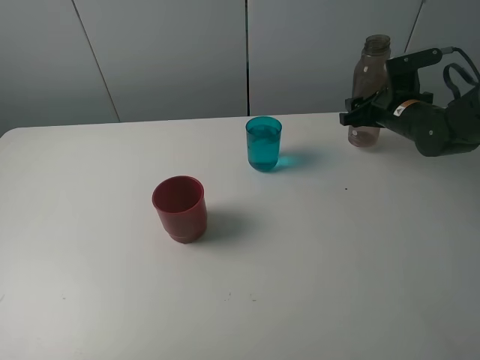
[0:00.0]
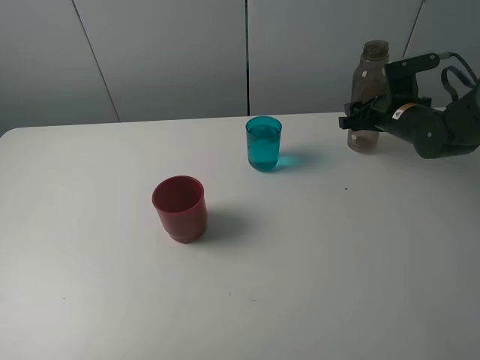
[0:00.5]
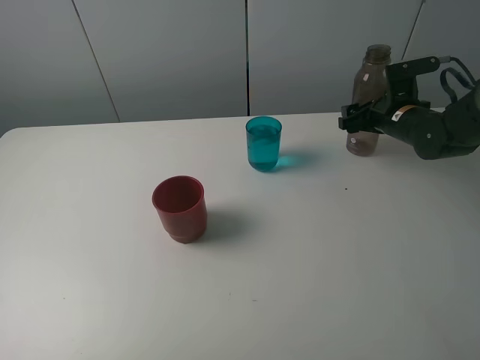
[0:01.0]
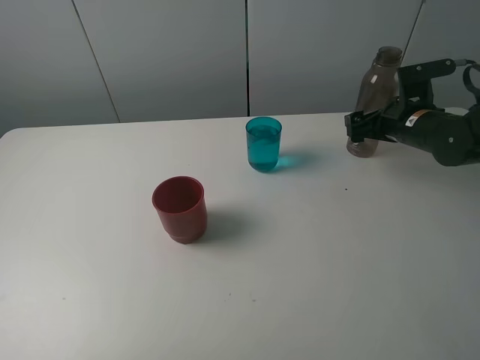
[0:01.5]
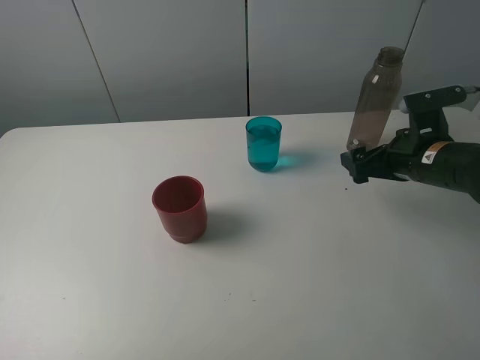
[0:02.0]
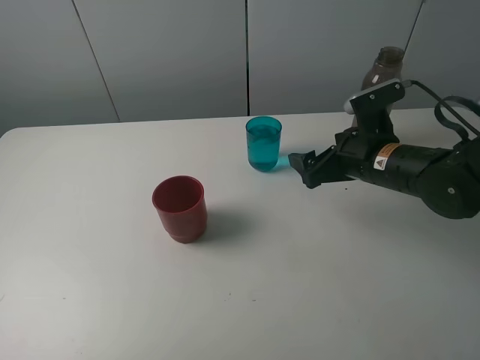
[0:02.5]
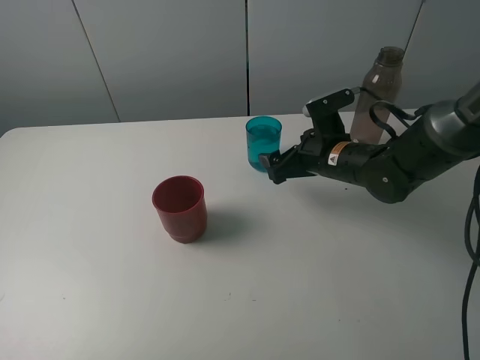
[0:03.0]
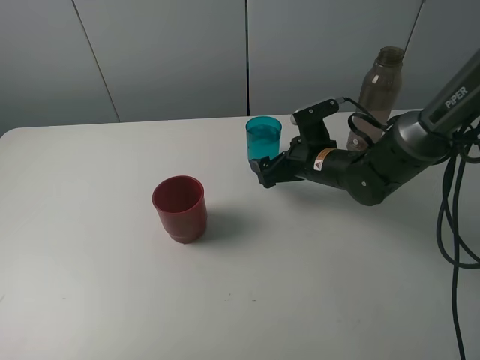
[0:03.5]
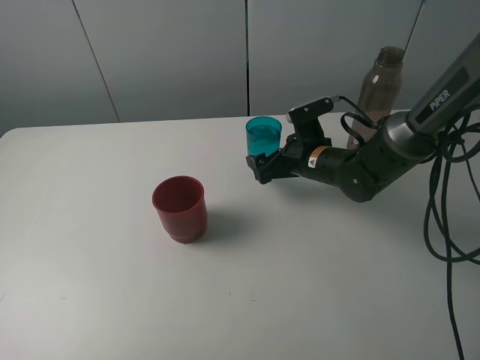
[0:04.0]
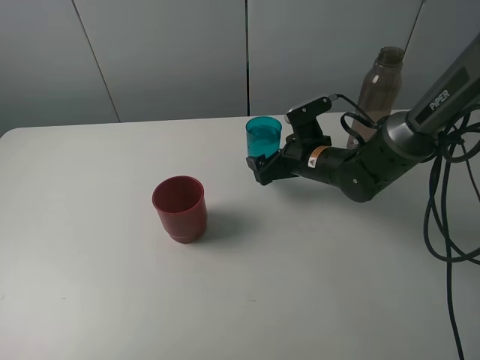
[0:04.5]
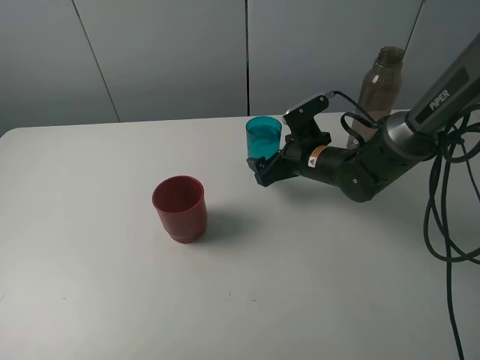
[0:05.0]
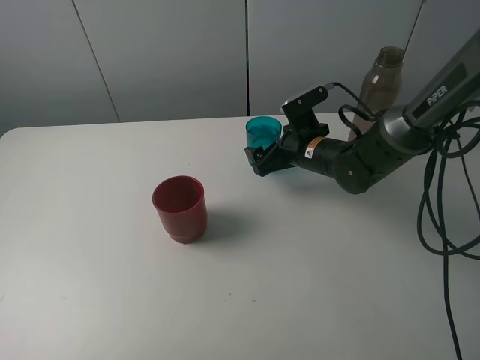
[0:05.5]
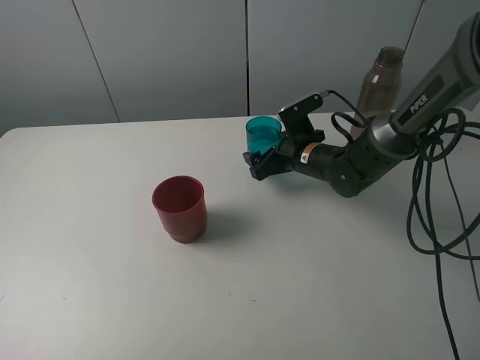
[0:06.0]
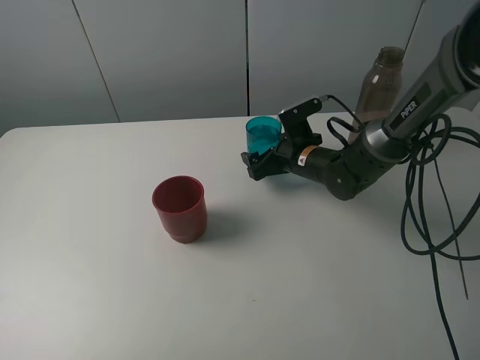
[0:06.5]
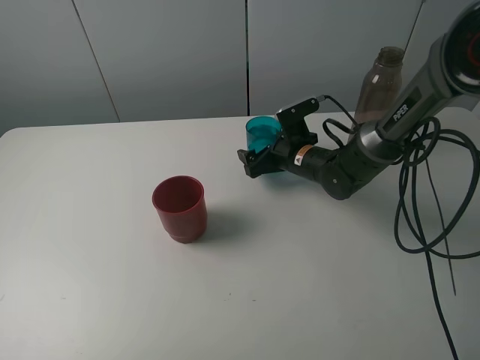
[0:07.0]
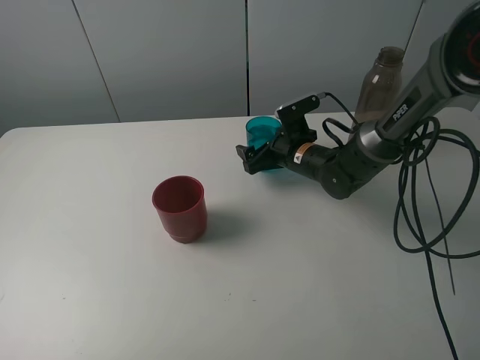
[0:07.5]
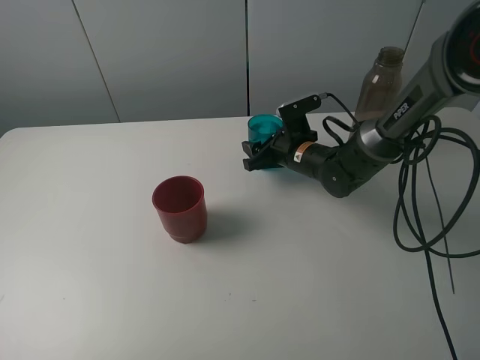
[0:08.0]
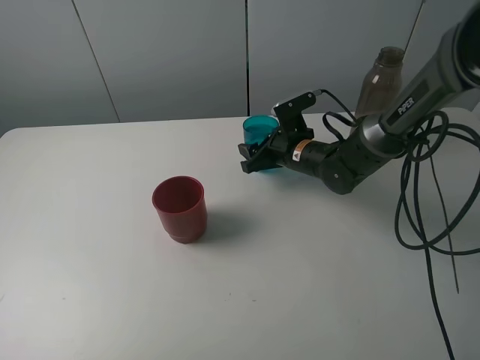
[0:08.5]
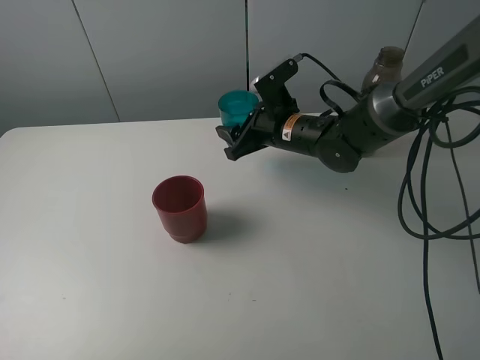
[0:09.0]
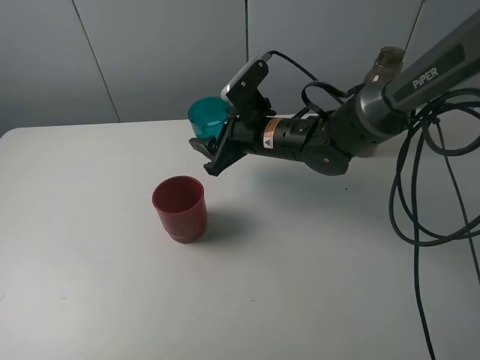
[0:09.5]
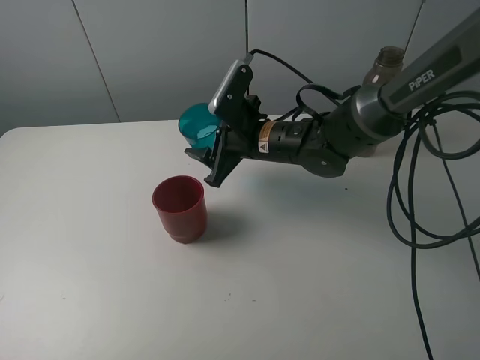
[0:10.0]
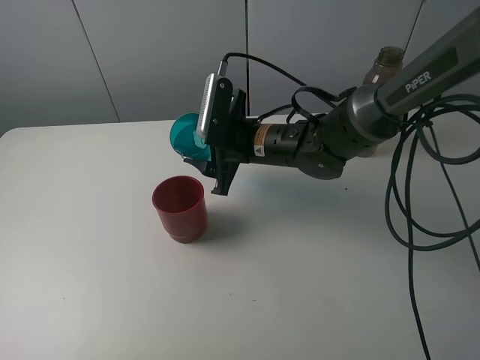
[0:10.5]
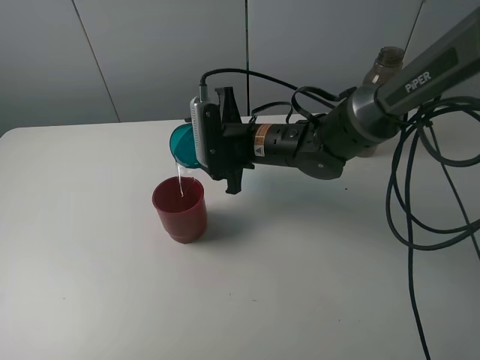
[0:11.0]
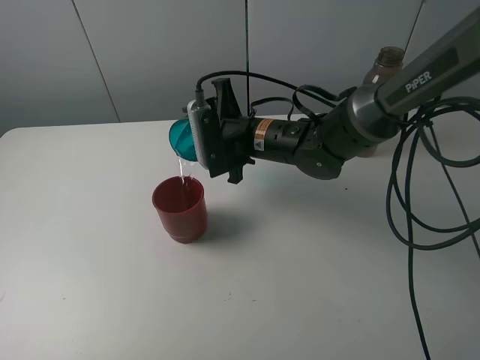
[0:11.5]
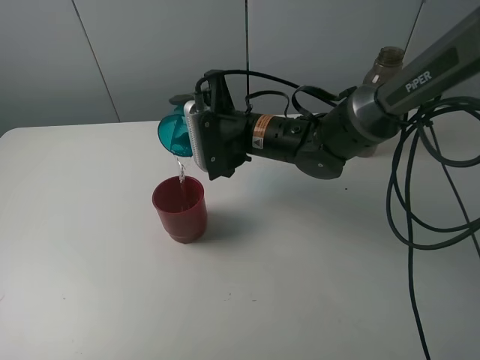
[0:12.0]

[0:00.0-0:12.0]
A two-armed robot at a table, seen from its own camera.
Task of the whole recording: pick up the bottle and pour water into the cup, then pick up the cup containing water and pour it into another cup.
Step, 0:02.0 to 0:08.0: Grasp the blue cup with the right gripper.
0:00.0 to 0:02.0: The right gripper moves backward, approximately 15 cm, and opens.
0:02.0 to 0:04.0: The right gripper goes some 15 cm to the left, forward and downward.
0:04.0 to 0:06.0: There are only small adjustments of the grippers.
0:06.0 to 0:08.0: The right gripper closes its fingers.
0:08.0 to 0:10.0: The right gripper moves upward and to the left, roughly 10 cm.

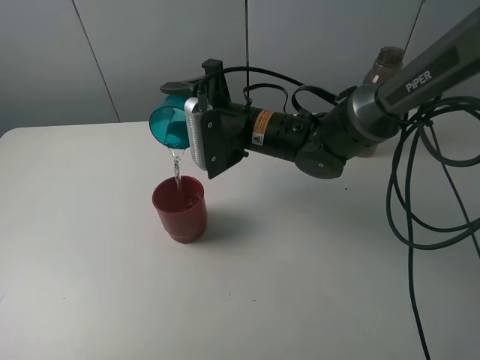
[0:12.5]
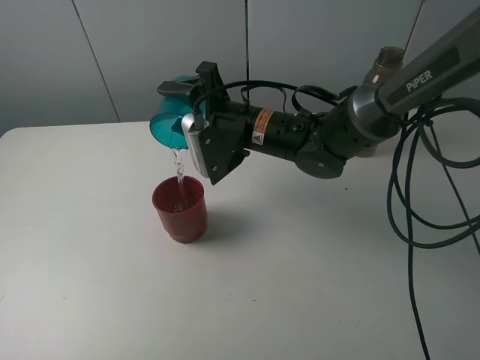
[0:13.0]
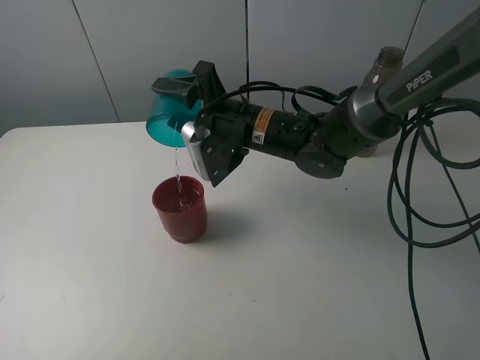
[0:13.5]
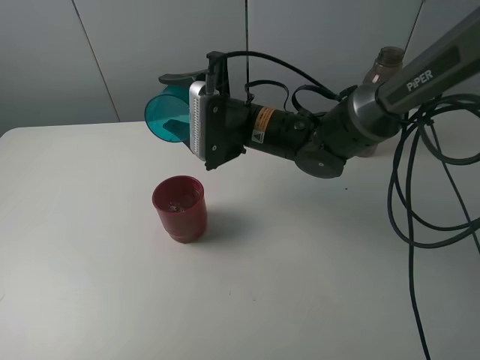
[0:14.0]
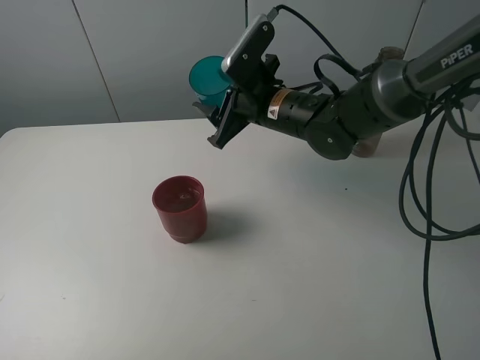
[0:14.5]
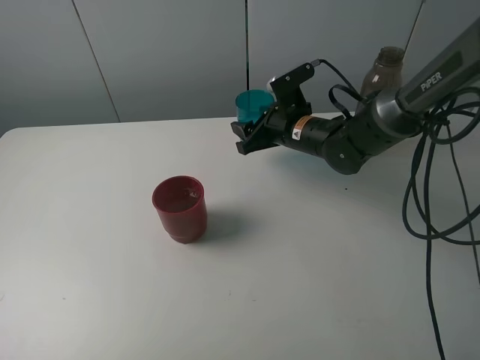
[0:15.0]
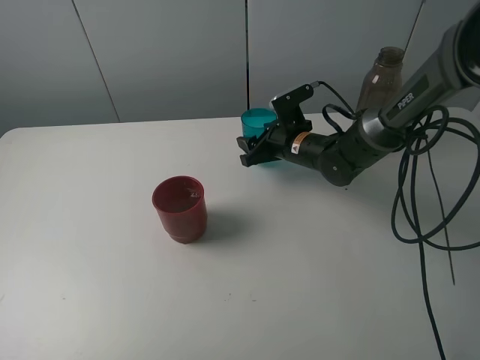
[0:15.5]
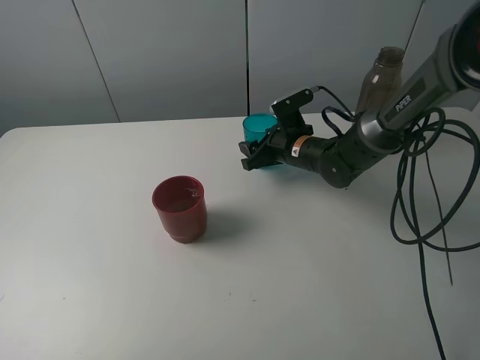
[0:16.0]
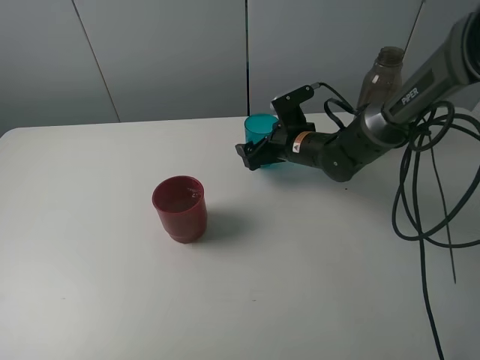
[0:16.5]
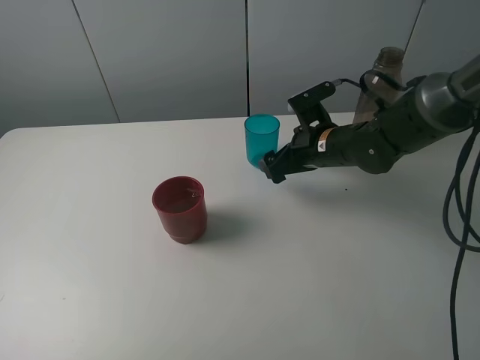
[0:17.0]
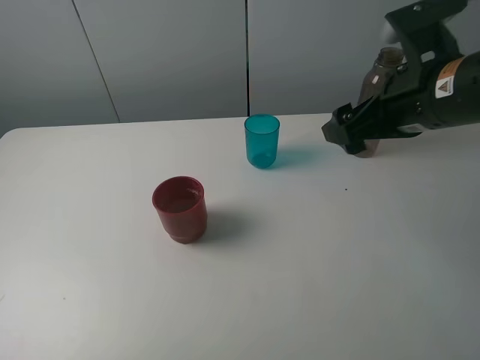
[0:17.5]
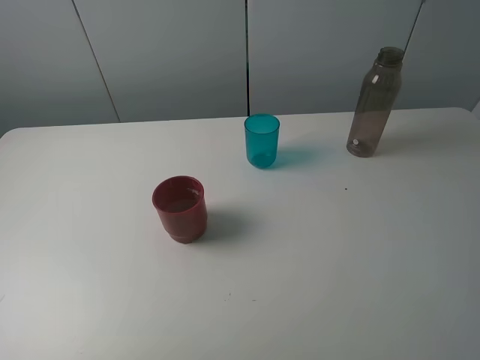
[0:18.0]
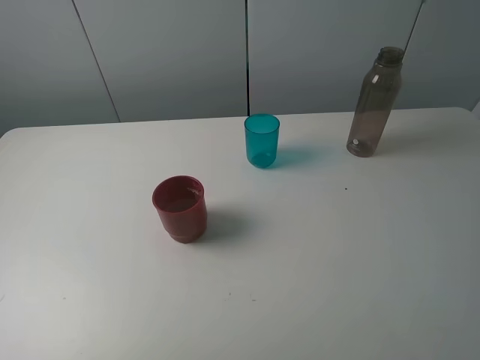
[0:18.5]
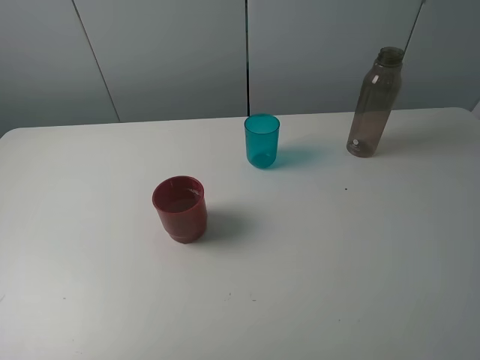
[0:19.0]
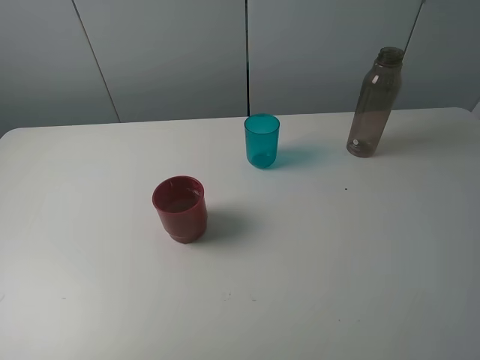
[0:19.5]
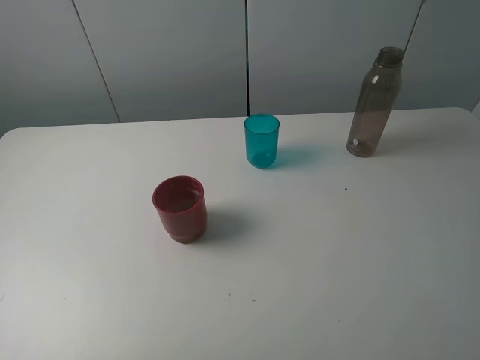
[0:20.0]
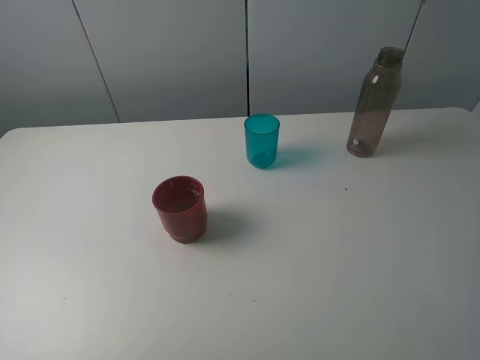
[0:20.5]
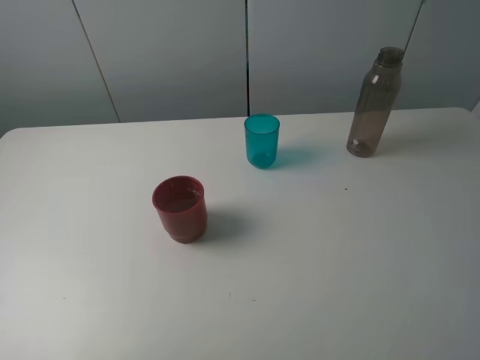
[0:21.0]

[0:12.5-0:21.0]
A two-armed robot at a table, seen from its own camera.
Task of the whole recording: pick up the bottle and pour water into the cup, then pick up the cup containing water and pour it into another cup.
Step, 0:14.0 to 0:16.5: Place the blue cup with the right gripper.
0:12.5 to 0:14.5: The right gripper changes place by approximately 5 cm.
0:14.5 to 0:16.5: The right gripper goes roughly 10 cm downward, and opens its fingers.
0:16.5 to 0:19.0: The right gripper heads backward, upward and to the right, covering about 50 cm.

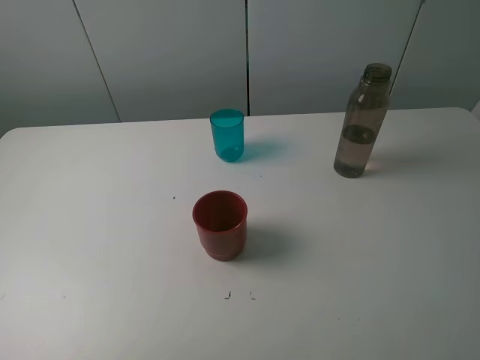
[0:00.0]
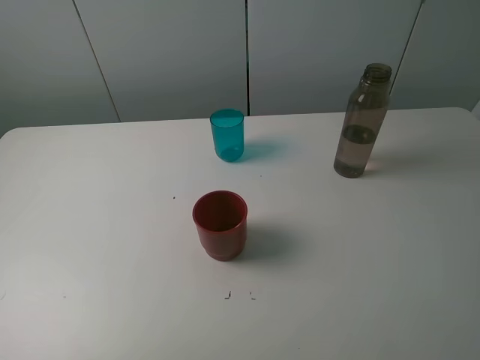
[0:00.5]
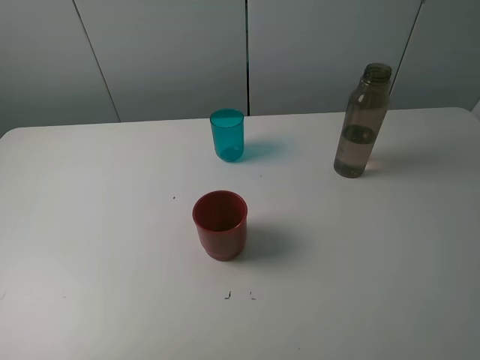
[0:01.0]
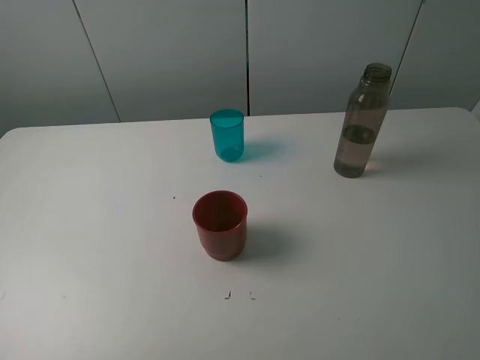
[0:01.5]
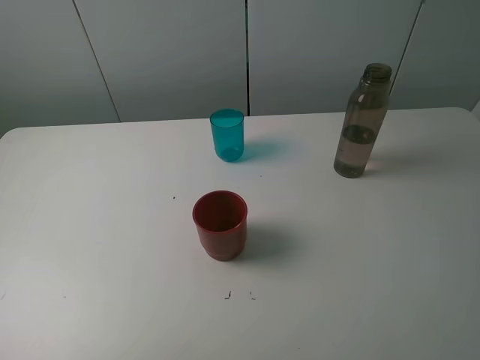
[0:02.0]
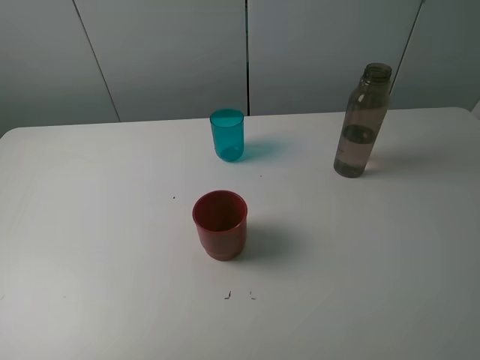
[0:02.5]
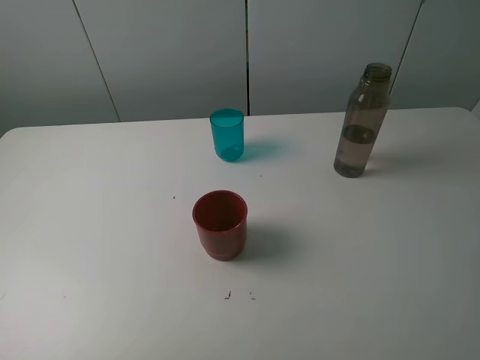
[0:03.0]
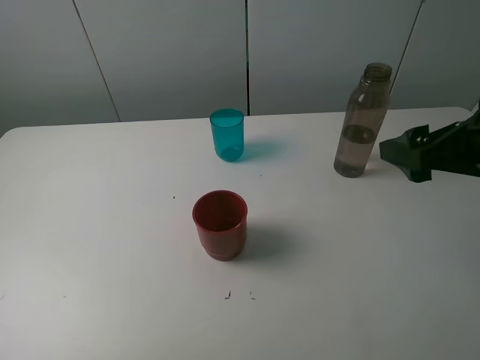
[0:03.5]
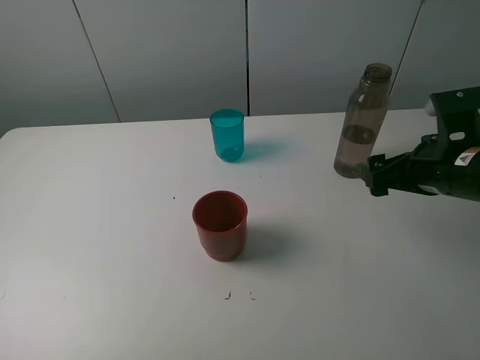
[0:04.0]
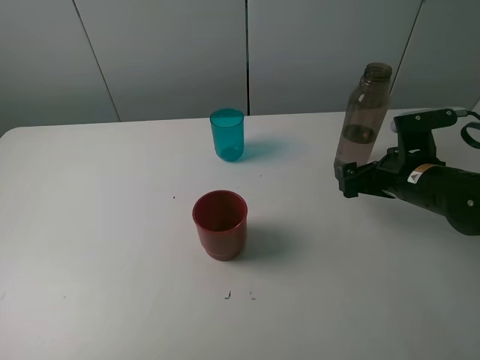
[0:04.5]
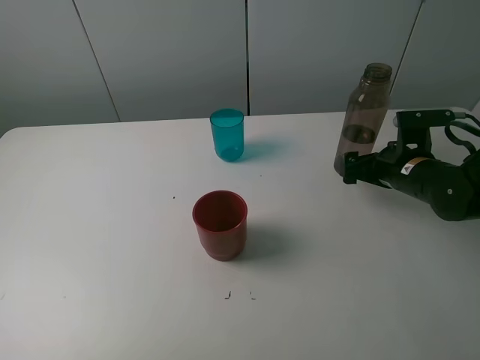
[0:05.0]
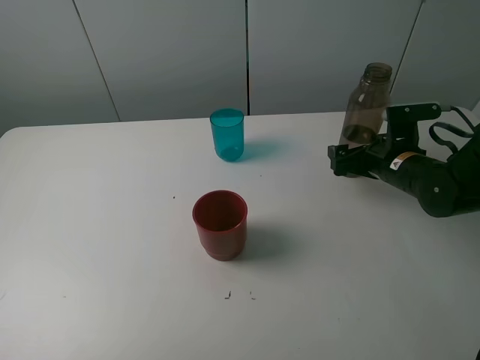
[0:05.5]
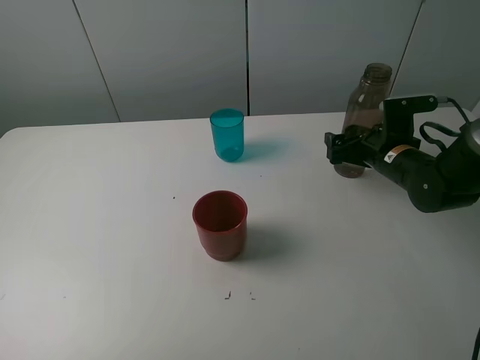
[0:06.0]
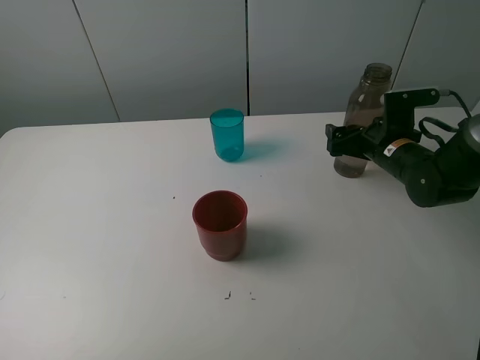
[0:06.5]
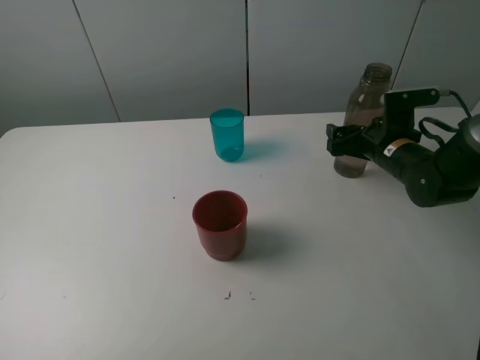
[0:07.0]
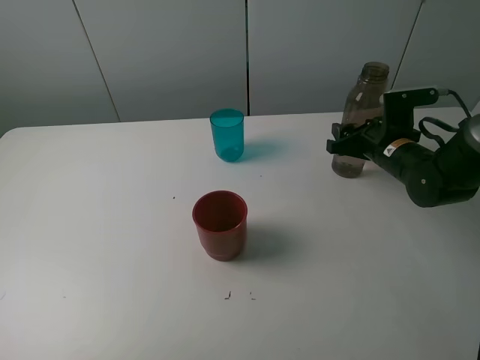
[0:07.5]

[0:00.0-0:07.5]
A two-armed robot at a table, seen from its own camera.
Task of the whole recording: pick up the bottle and pour water into the cup, then pick up the cup containing water and pour it into another cup.
Step, 0:00.0 to 0:07.0: Grasp the brown bottle with the right gripper.
0:00.0 to 0:02.0: Both grippers stay about where they are.
0:02.0 to 0:04.0: The right gripper moves forward and downward, some 25 cm.
0:04.0 to 0:05.5: The right gripper goes roughly 10 cm forward and downward.
0:05.5 to 0:07.5: The right gripper closes up.
